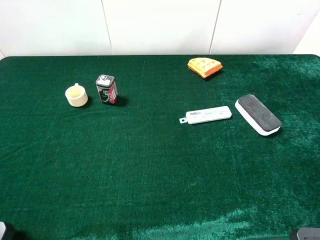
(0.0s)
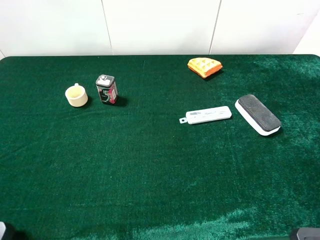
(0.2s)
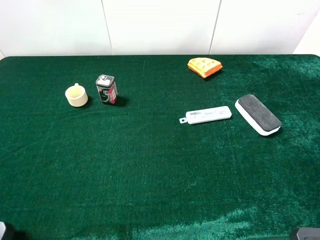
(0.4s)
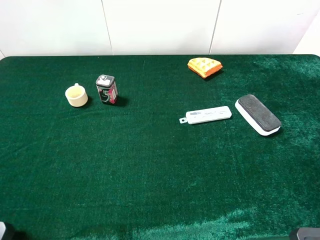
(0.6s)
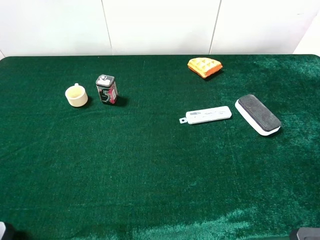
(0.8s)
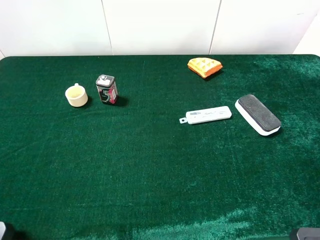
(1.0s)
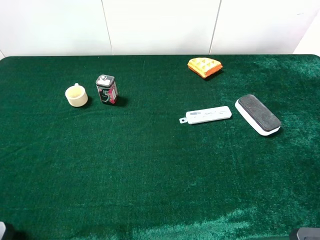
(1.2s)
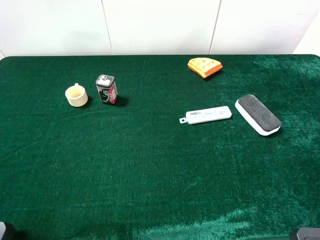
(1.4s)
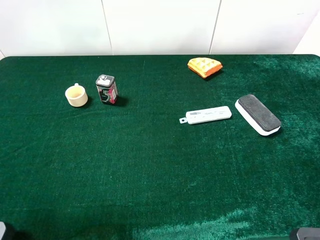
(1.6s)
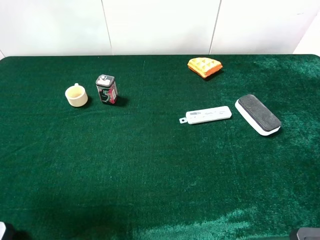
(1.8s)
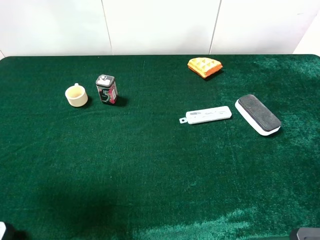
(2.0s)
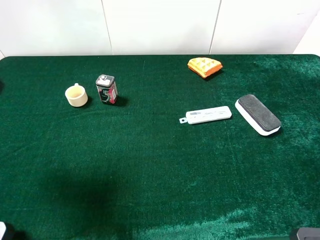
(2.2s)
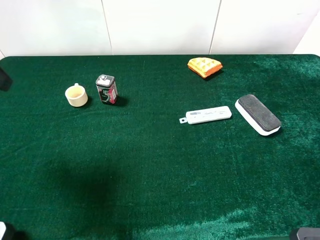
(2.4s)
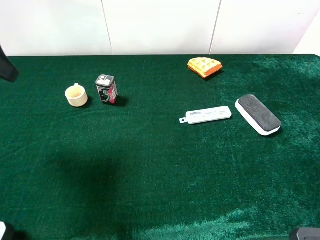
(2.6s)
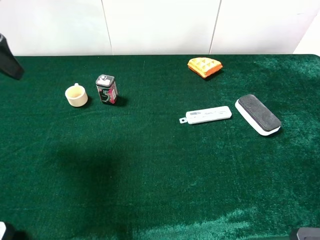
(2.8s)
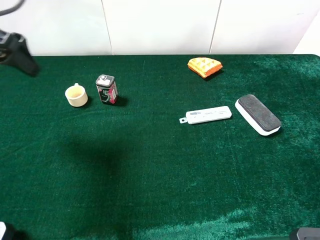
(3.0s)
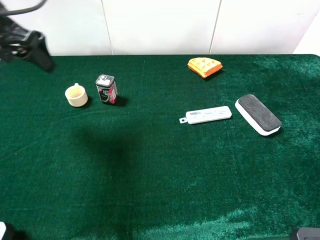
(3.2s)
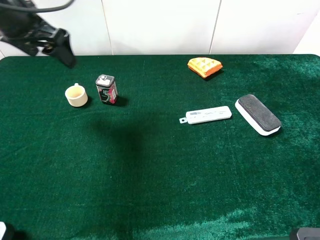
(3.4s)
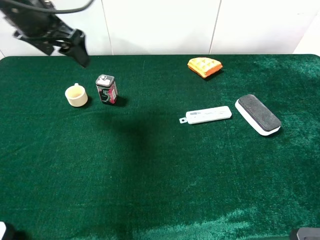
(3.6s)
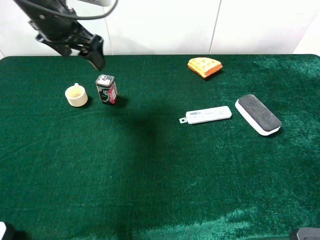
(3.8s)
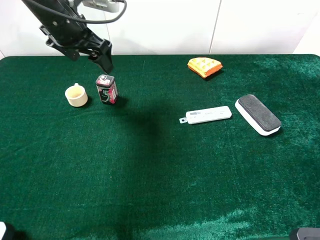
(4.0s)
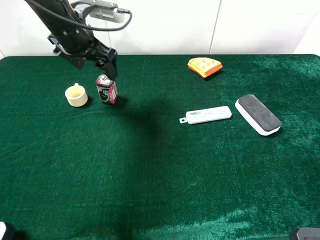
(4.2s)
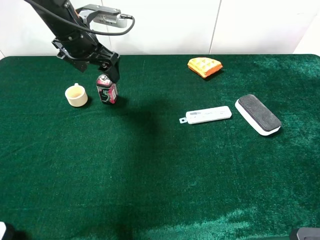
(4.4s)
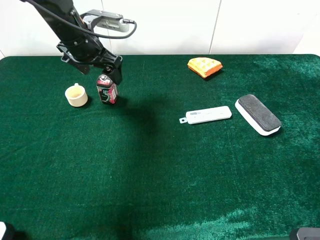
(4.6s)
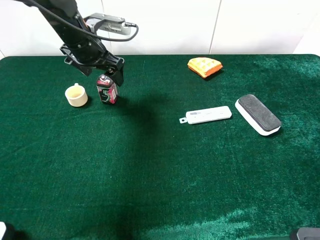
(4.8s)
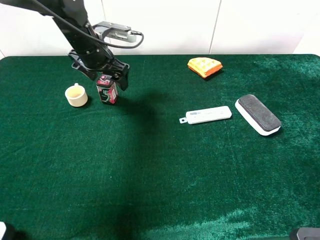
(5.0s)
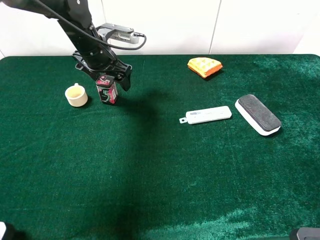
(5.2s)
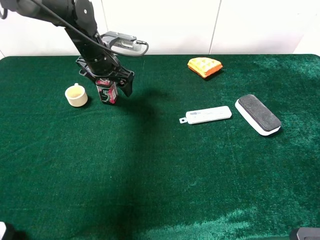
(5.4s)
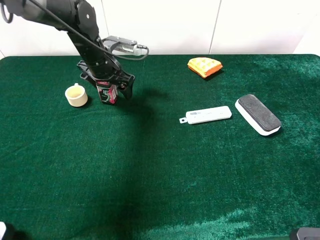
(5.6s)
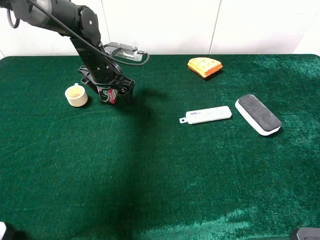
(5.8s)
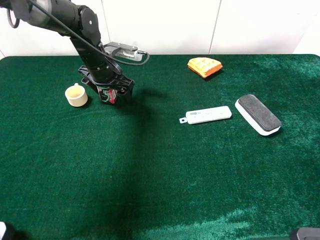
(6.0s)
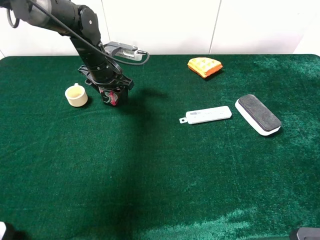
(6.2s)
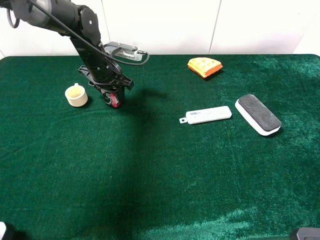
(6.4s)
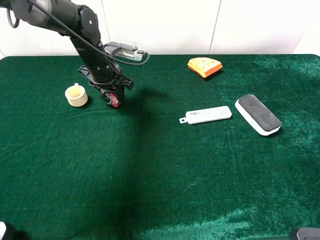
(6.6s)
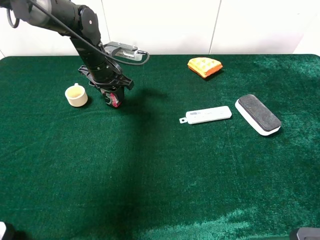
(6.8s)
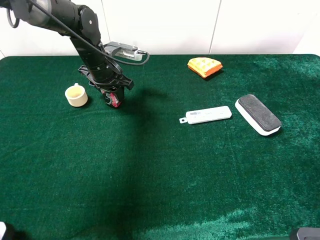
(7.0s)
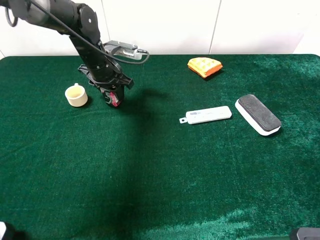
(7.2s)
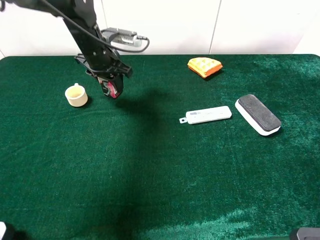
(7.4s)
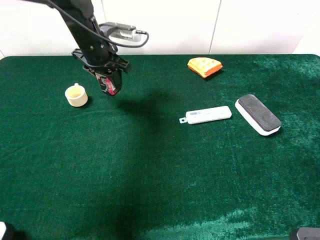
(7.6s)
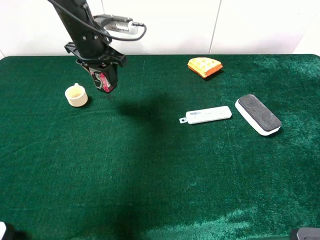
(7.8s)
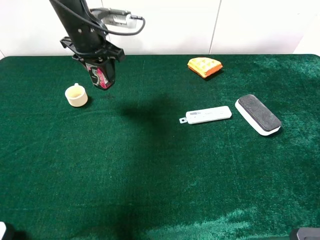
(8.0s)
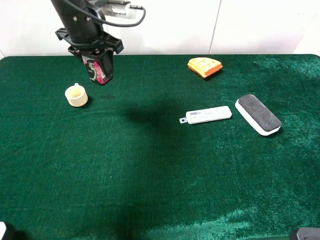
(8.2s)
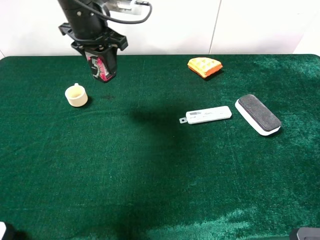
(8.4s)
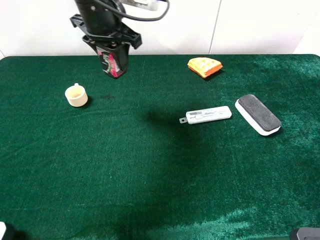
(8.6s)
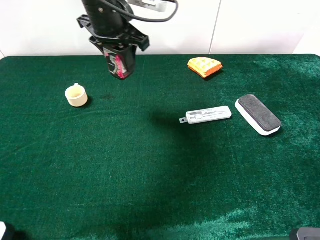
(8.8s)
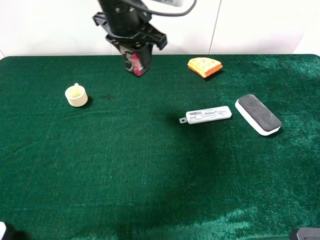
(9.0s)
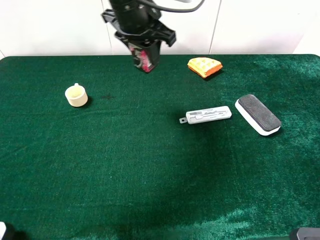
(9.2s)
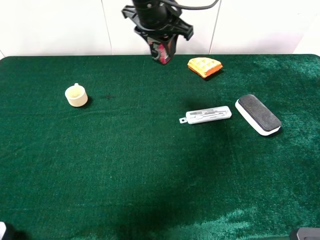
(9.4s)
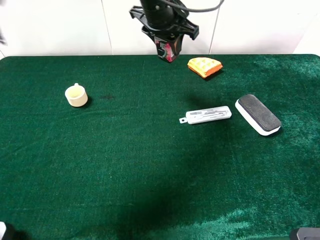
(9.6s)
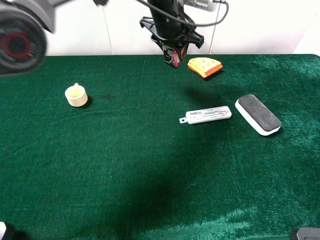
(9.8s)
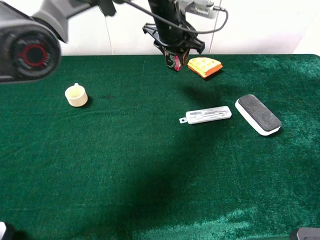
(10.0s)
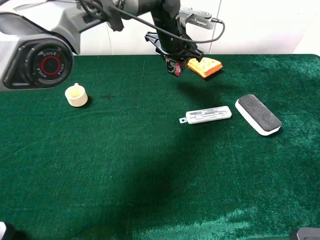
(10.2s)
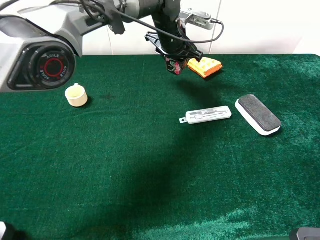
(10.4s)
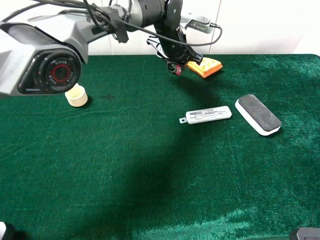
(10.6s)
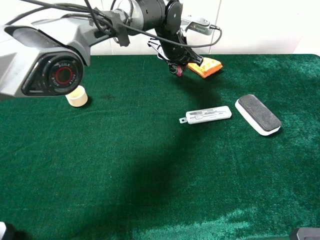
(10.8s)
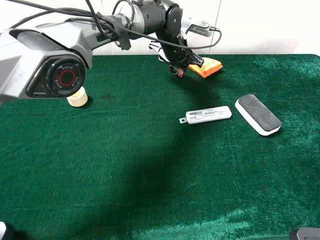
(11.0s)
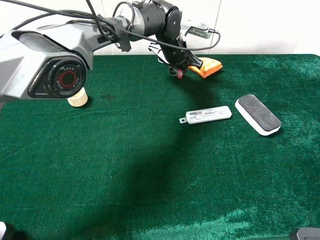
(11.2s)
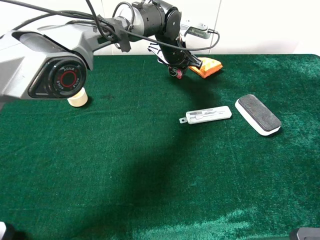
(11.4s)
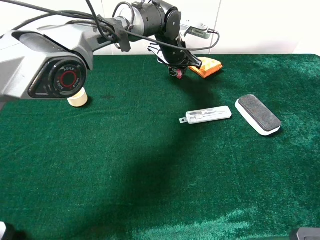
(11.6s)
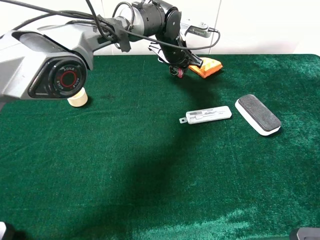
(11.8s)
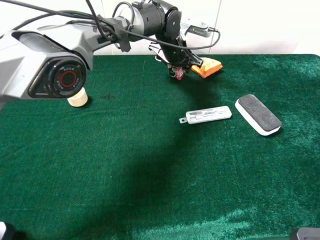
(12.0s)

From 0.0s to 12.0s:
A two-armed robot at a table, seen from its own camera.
Task of the whole recording: the gripper move the object.
Step, from 0.0s to 6.6s: Grasp the square chewing gun with the left gripper.
From 1.6s to 3.0s: The left gripper is displaced forward by roughly 20 cm.
From 3.0s to 4.4s: The left gripper heads to the right, forward and downward, covering some 20 cm.
From 4.4s to 6.0s: The left gripper goes roughly 10 cm downward.
From 6.0s to 7.6s: The left gripper closes up.
From 7.6s to 9.0s: The left gripper shifts roughly 15 cm upward, to the right and backward.
From 9.0s to 10.4s: The left gripper shifts about 15 cm forward, downward and to the right.
From 10.4s to 12.0s: There are only small adjustments of the grippers.

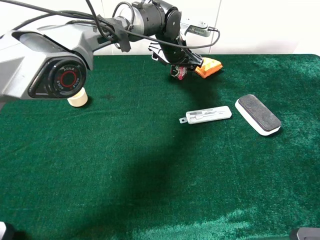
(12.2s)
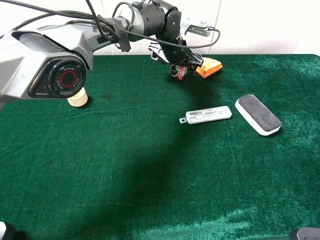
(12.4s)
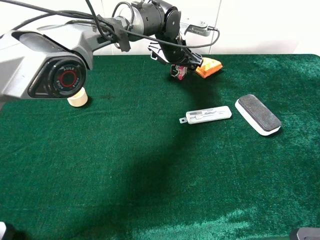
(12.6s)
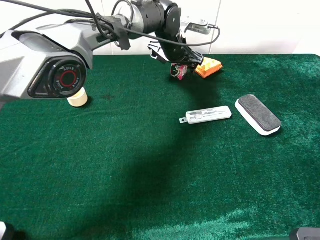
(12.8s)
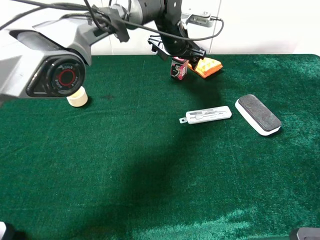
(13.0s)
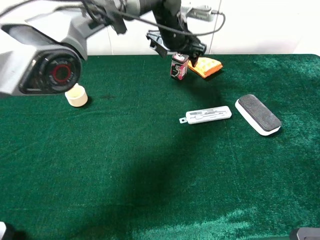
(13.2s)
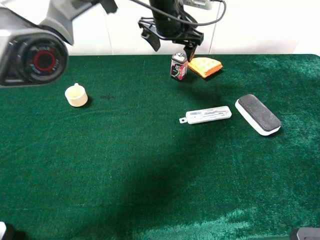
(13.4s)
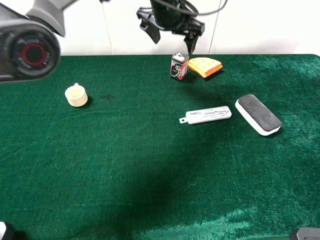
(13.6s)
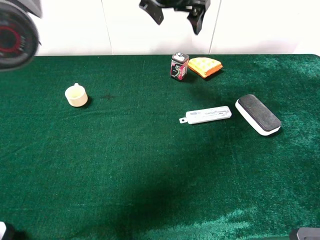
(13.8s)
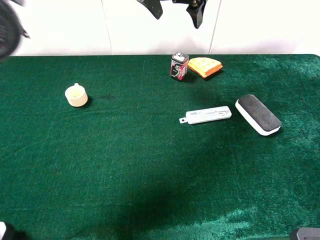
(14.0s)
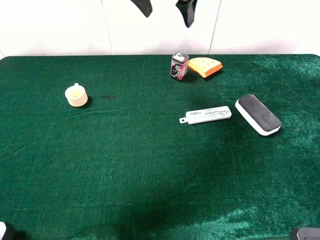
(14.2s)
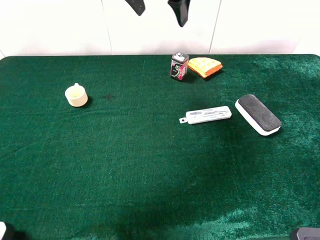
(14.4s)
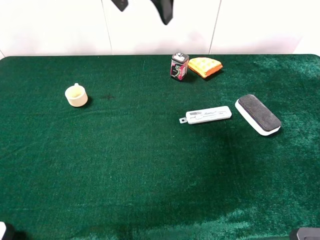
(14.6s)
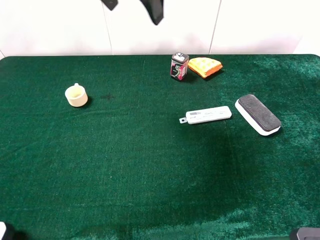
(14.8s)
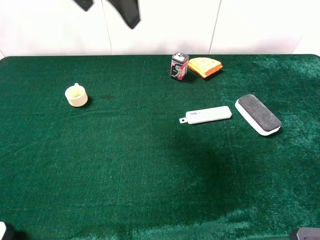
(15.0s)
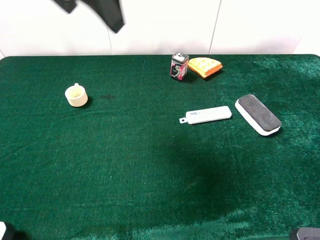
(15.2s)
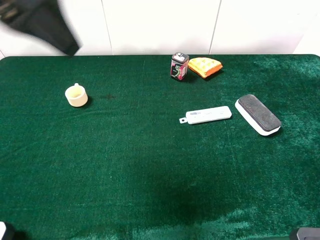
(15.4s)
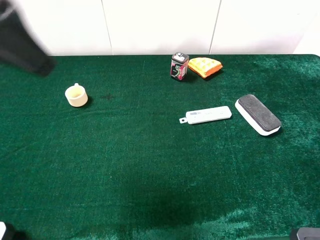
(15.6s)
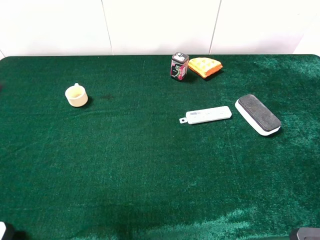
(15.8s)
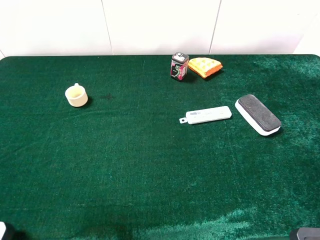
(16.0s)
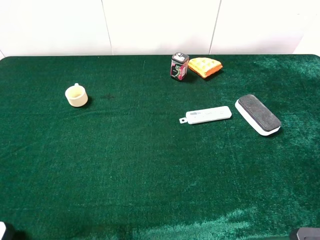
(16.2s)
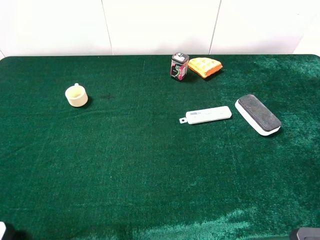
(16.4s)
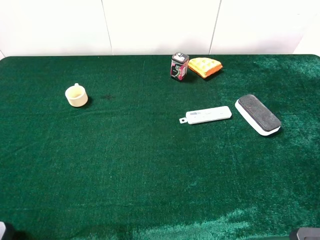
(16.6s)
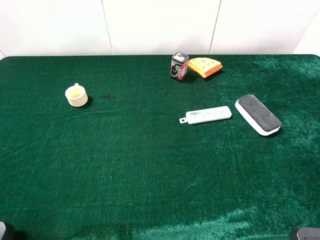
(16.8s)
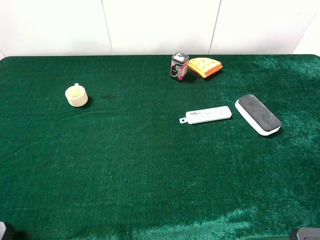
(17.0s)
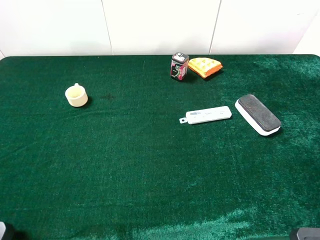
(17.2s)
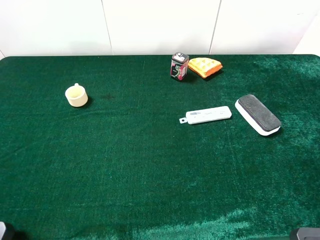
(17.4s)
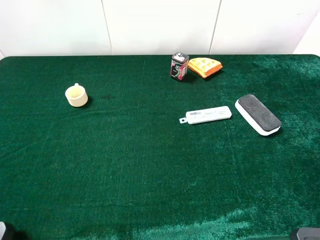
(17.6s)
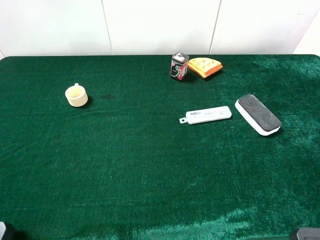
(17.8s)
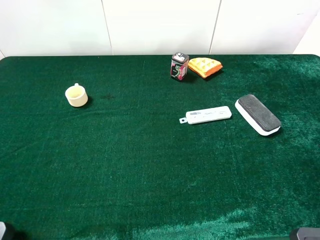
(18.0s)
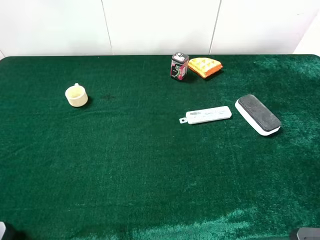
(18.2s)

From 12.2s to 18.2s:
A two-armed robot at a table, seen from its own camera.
Task of the whole recording: the gripper move the object.
From 12.2s to 13.8s: The left gripper travels upward by approximately 15 cm.
From 13.8s to 15.2s: The left gripper goes roughly 25 cm backward, to the left and upward.
From 15.2s to 16.6s: The left gripper travels backward and to the left by roughly 30 cm.
